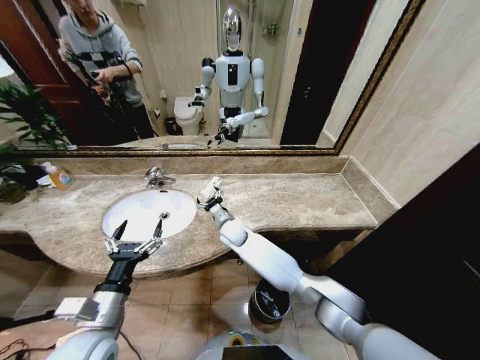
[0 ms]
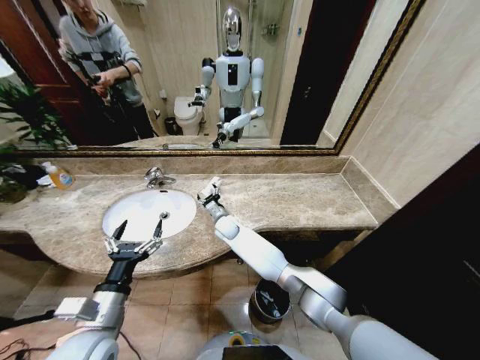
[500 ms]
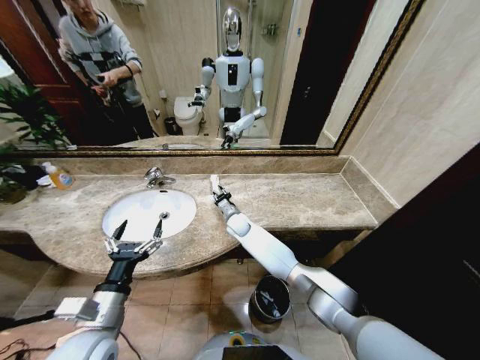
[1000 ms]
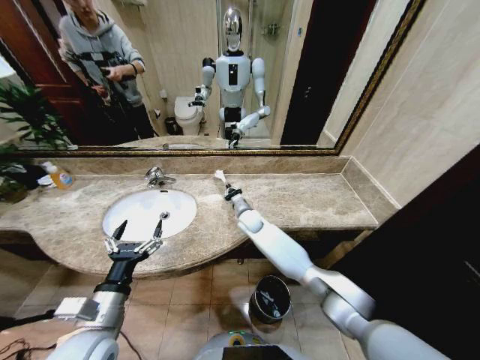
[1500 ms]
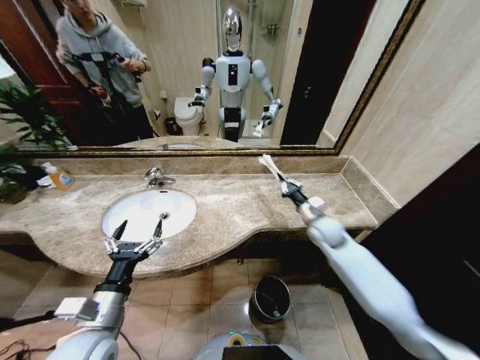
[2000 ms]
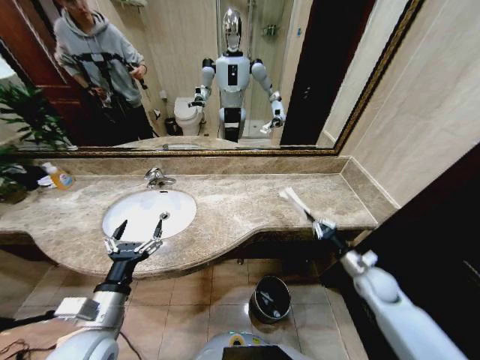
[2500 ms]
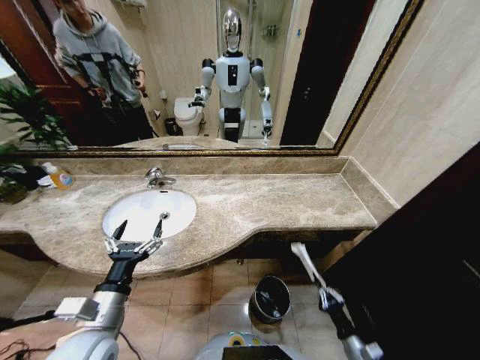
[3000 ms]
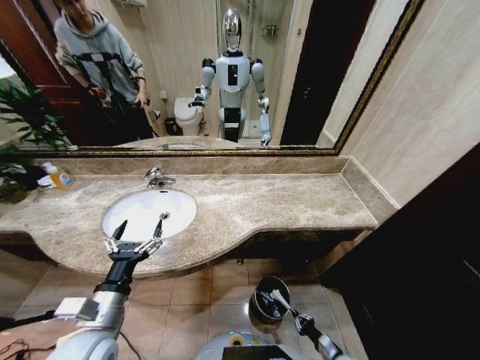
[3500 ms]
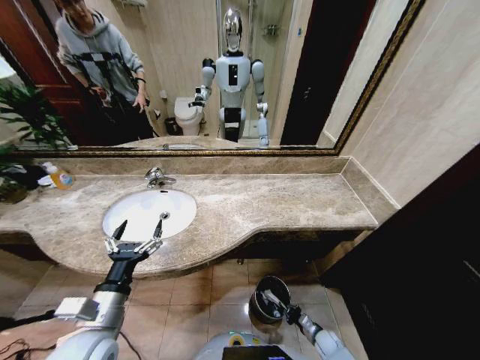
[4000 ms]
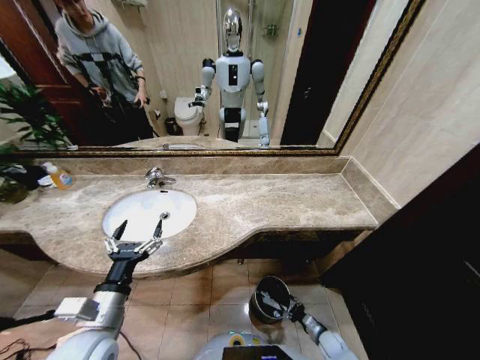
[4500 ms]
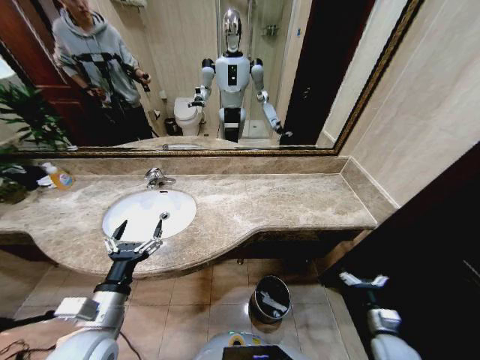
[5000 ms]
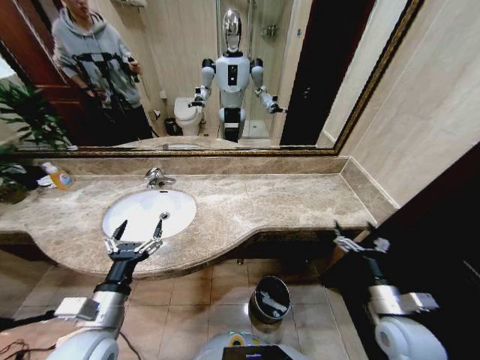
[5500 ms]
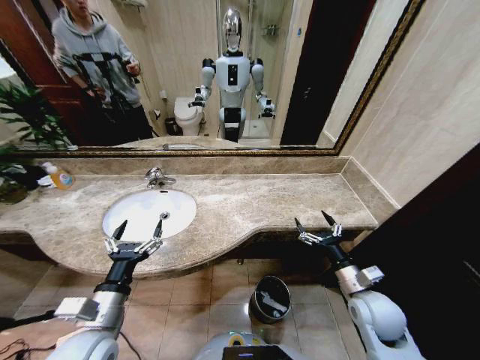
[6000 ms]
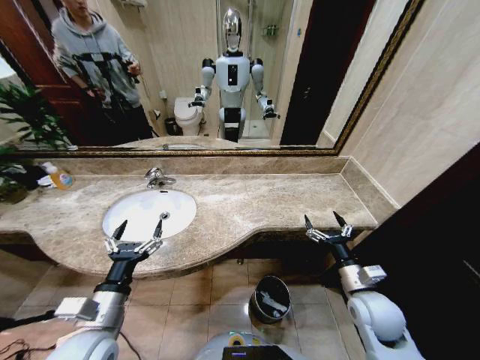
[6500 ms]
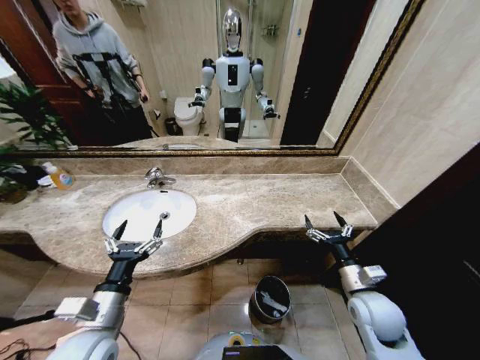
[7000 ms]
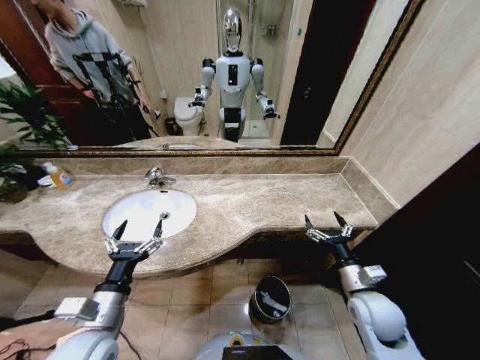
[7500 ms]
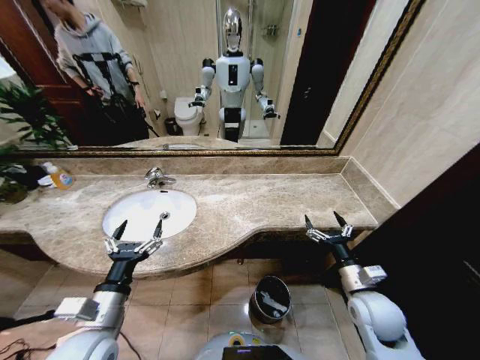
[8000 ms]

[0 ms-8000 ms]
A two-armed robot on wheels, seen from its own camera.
Task of the whole recording: Pick up the trash from the sink and place it in the trash bin.
0 ms to 2000 ms: The right gripper goes some 30 cm to the right, and closes.
2000 ms to 4000 ms: The right gripper goes roughly 50 cm downward and backward.
4000 ms to 6000 ms: The right gripper is displaced upward by approximately 35 cm, and opens.
6000 ms to 8000 ms: The grippers make only small movements.
